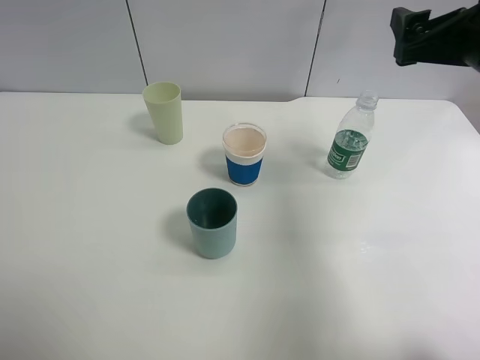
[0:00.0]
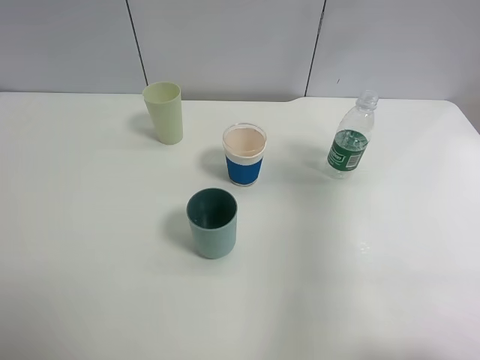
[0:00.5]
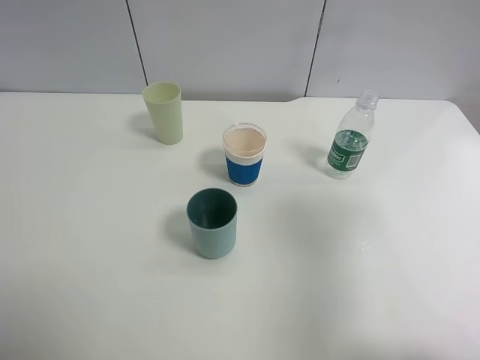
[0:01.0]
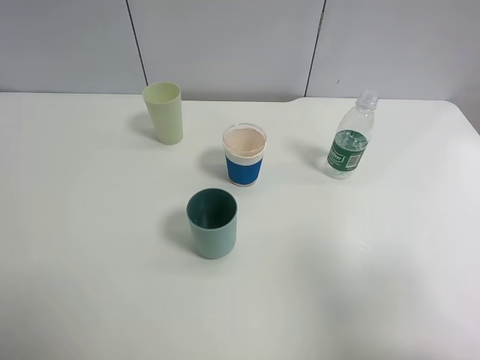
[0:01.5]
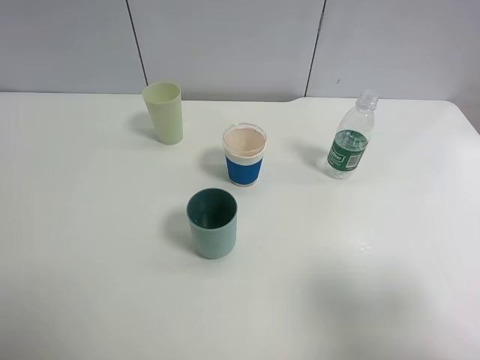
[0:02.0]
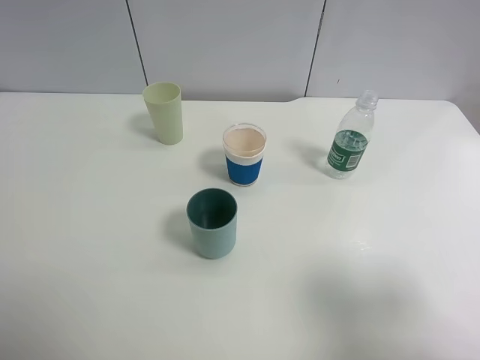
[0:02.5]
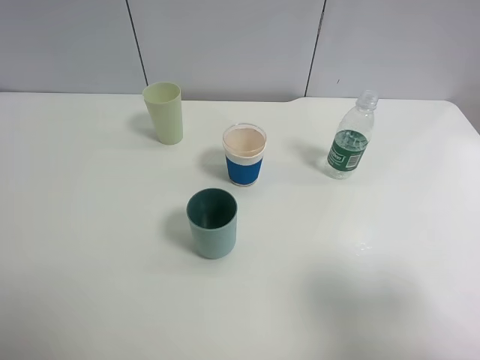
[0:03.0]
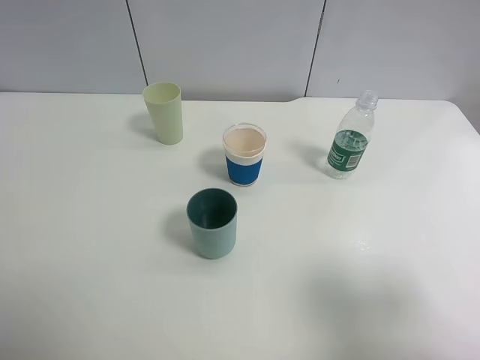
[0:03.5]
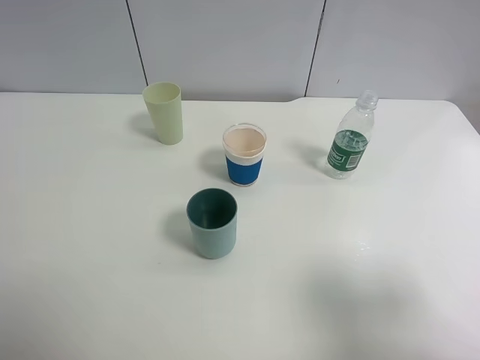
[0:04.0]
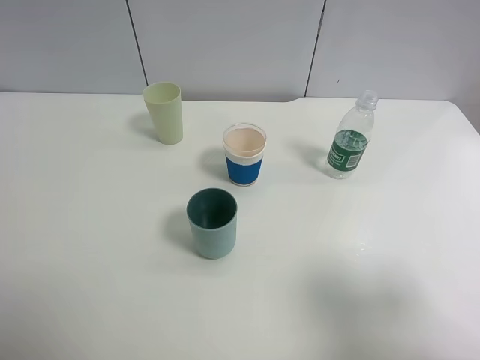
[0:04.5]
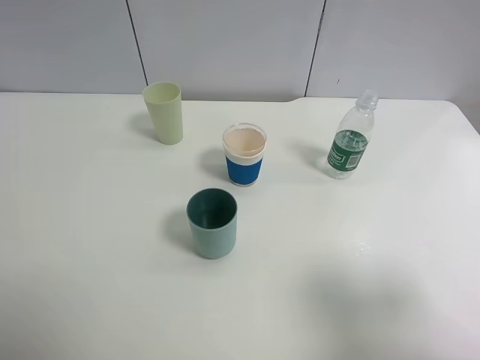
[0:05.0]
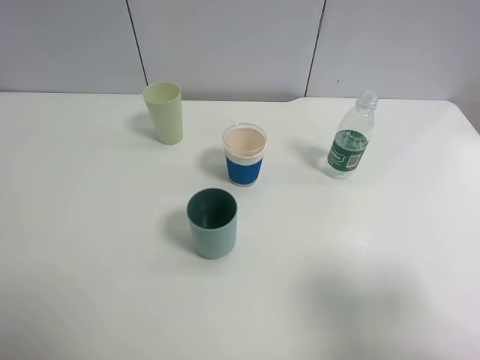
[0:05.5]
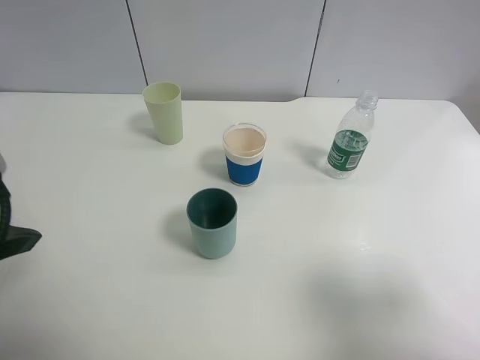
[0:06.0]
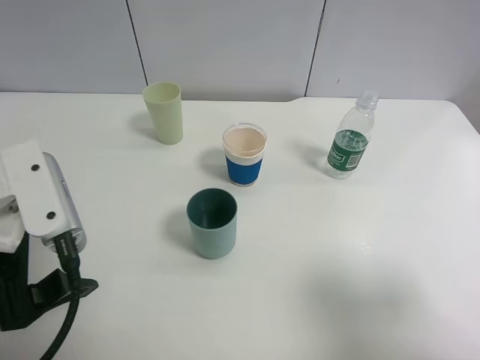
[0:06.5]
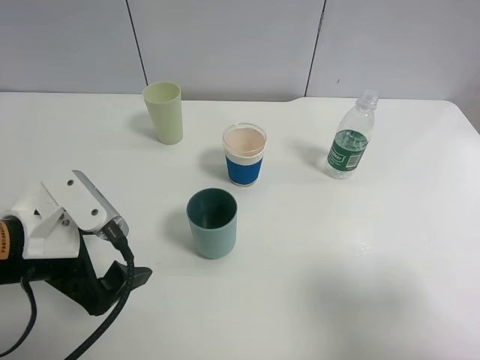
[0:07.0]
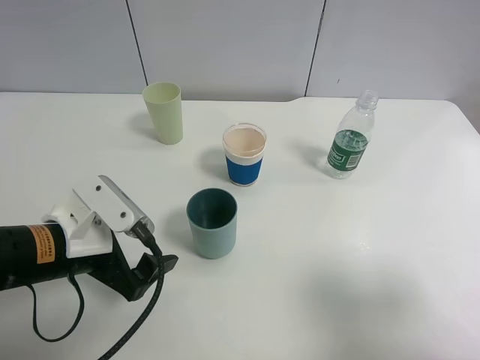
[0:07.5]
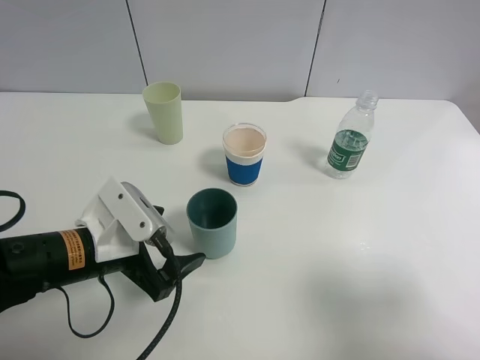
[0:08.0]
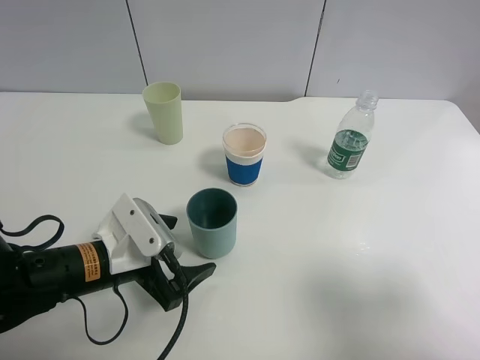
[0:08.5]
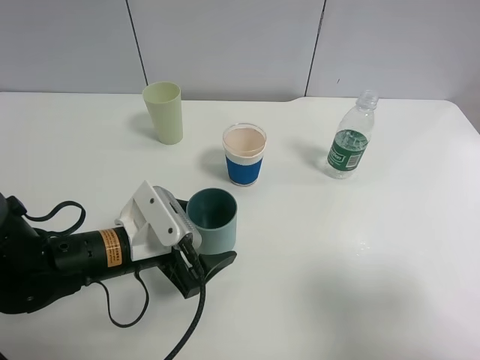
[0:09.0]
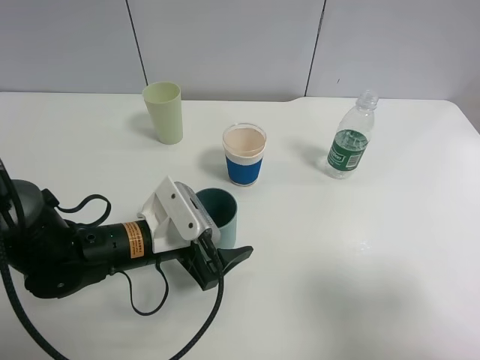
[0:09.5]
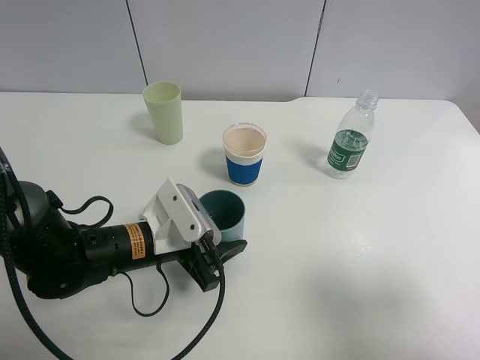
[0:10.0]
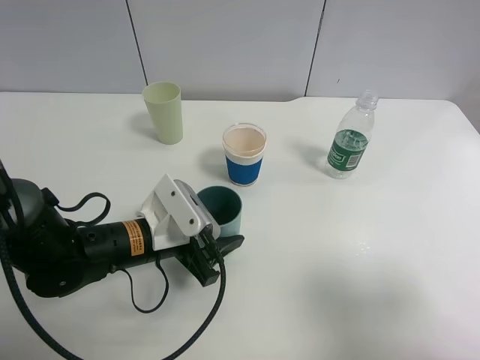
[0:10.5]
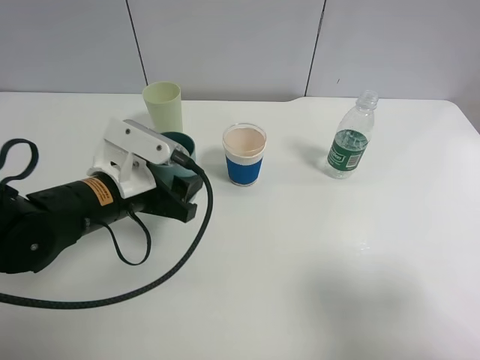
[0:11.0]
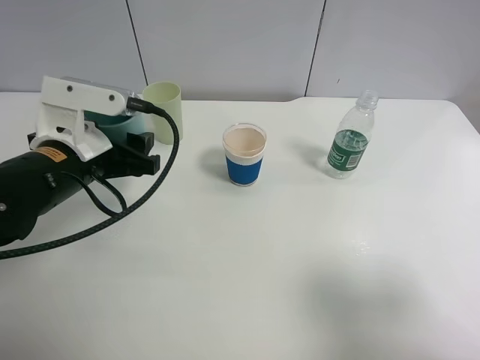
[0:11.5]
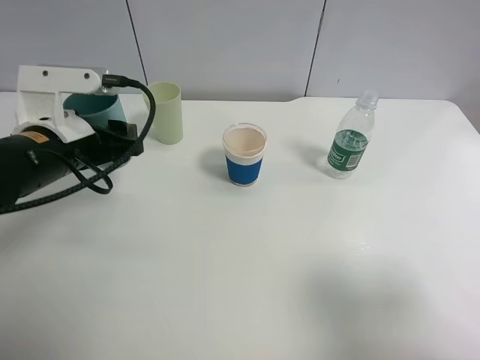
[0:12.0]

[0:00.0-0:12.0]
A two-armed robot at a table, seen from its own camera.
Task of the whole recording: use a clamp to hold the bottle of the drink, pour the beverage into a random cup, then clamp the cup containing the drink and pour the drink into another random cup.
Step, 0:00.0 to 0:10.5: Pick up the blue plastic cup bottle with left gripper.
0:00.0 to 0:02.0: The right gripper goes about 25 cm backward.
0:02.0 to 0:04.0: Neither gripper changes place.
0:04.0 to 0:06.0: The left gripper goes roughly 15 cm forward and to the right.
0:06.0 to 0:08.0: The left gripper travels downward and to the right by about 20 cm.
0:08.0 to 0:10.0: The left gripper ends up approximately 5 cm from where it was, and closes up.
0:10.0 to 0:12.0: The left gripper shifts some 15 cm upward and to the left.

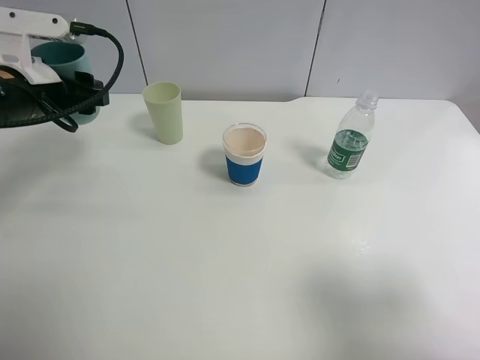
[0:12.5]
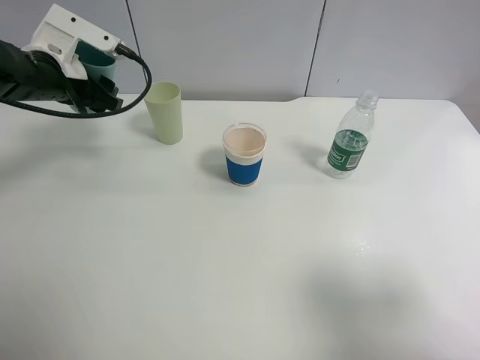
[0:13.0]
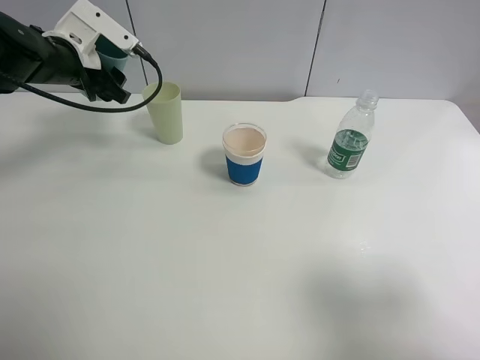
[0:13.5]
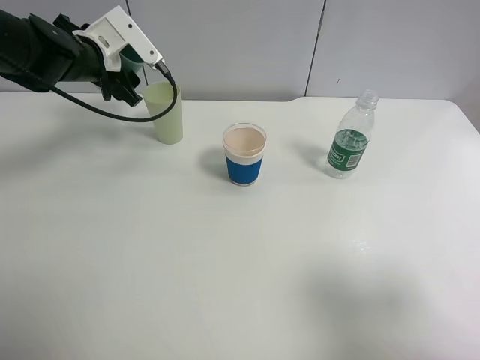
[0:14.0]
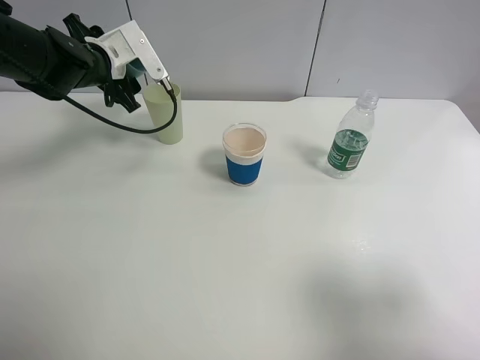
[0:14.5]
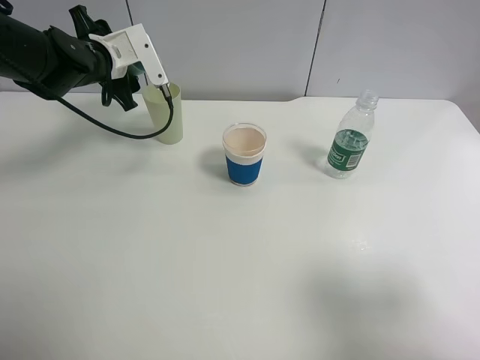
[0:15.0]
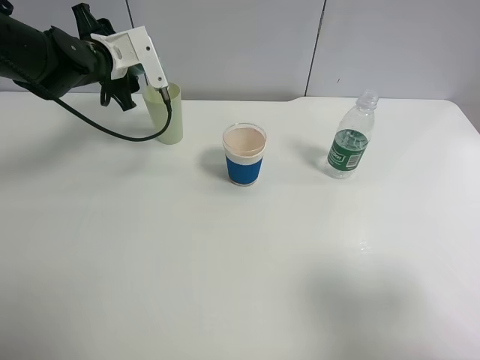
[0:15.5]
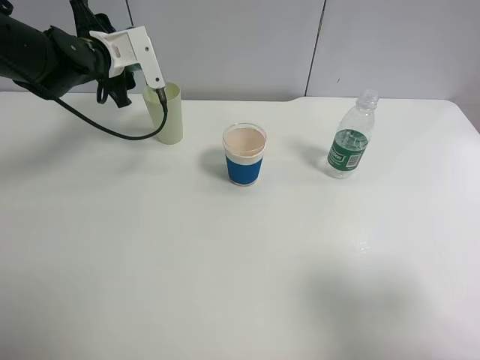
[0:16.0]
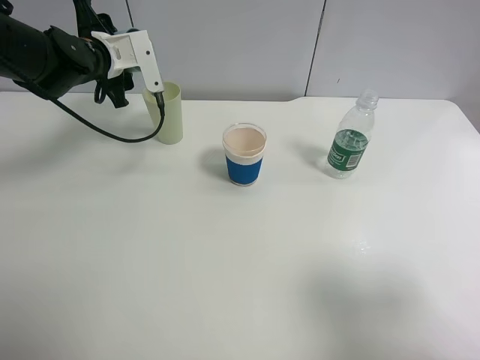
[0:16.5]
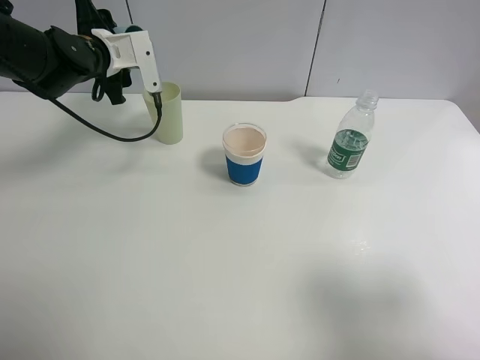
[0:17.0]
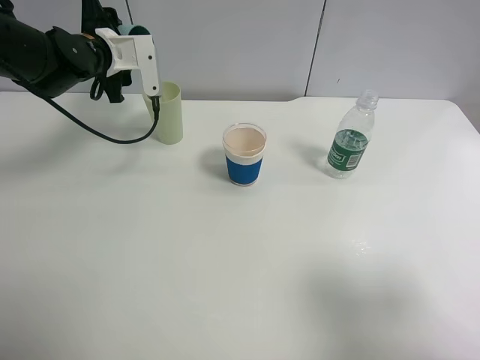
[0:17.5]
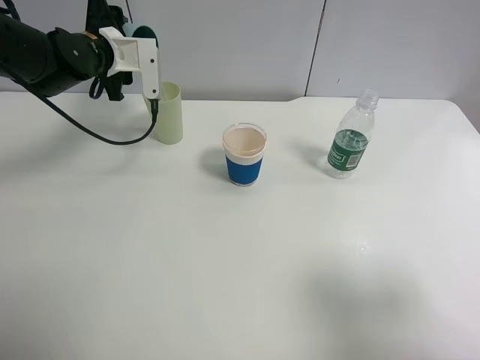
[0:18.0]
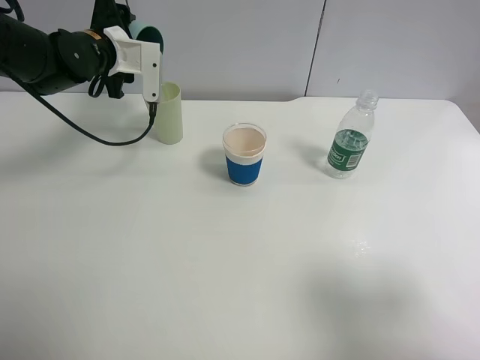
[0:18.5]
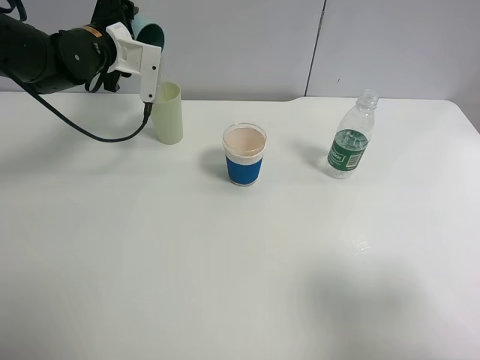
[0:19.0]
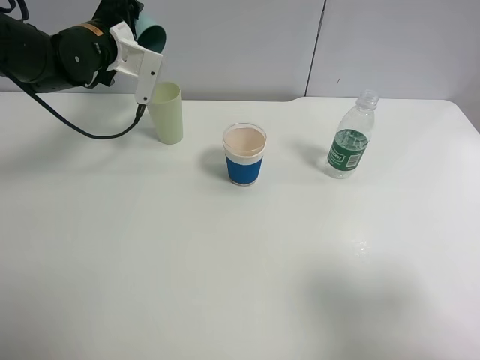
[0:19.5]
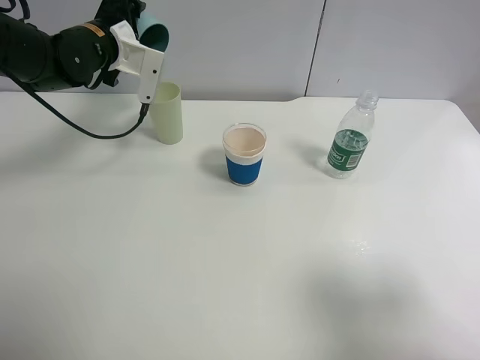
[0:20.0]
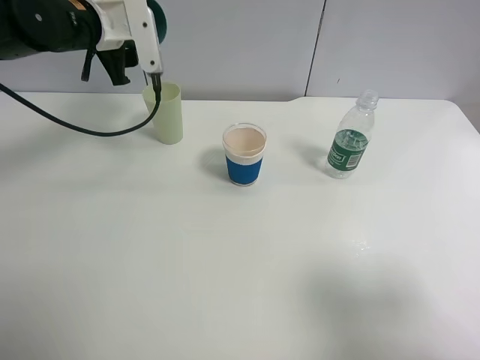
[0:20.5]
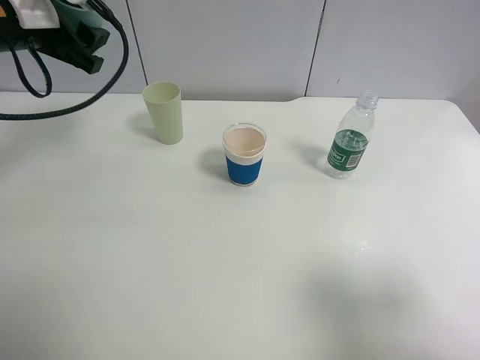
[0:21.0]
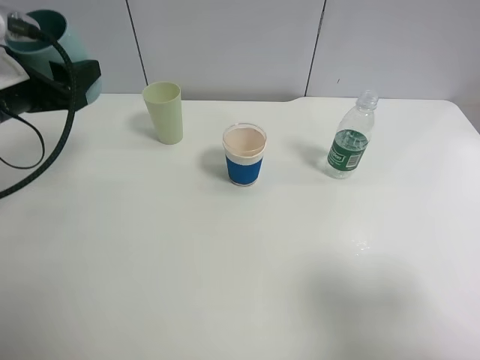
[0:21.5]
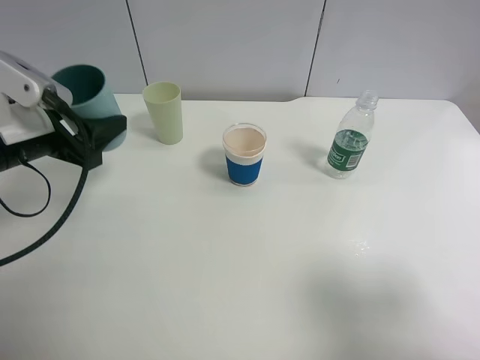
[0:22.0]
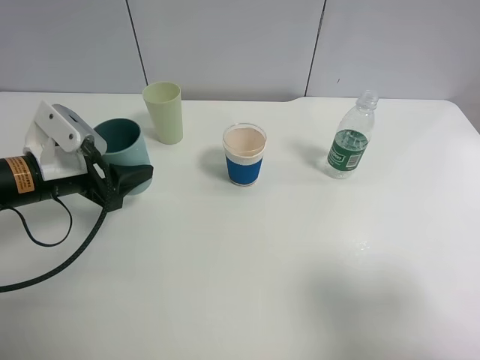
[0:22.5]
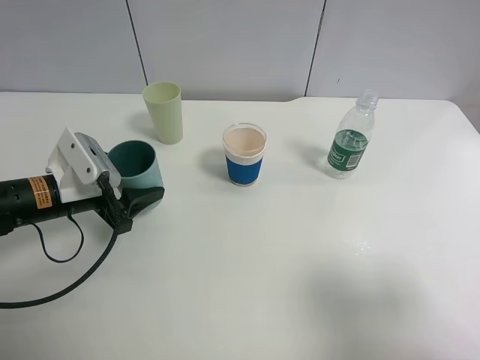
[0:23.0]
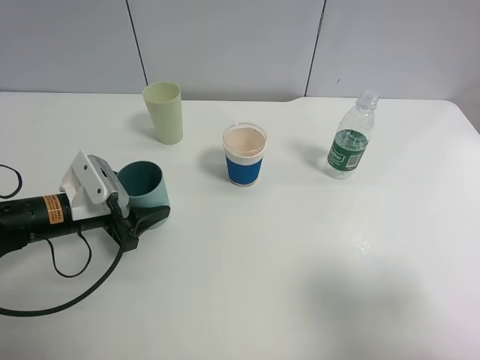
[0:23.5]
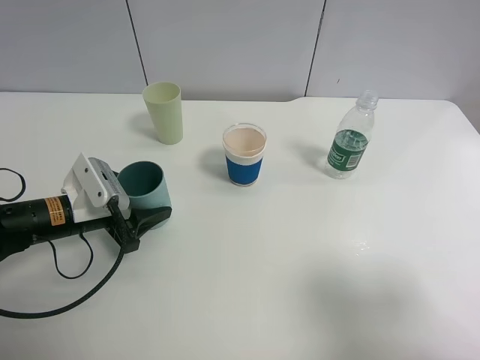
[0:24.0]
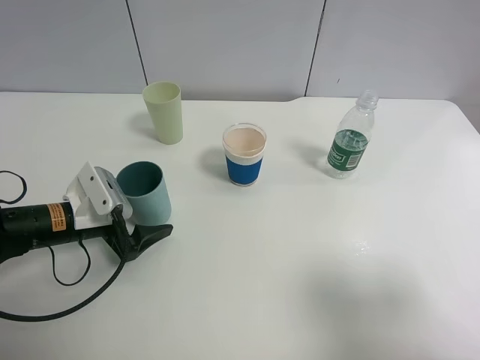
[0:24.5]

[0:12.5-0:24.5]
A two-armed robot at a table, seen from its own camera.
Task of the whole recording: use a clamp to hold the bottle of the drink, pour the beverage into a random cup, then clamp the cup containing the drink and pour the drink into another random cup.
Step, 0:12.5 to 0:20.5: Pour the water into the green plastic cup with left gripper.
0:12.5 to 0:14.5: The left gripper travels forward by approximately 10 cm.
0:14.5 to 0:16.5: The grippers make only small movements.
0:18.5 to 0:20.5: The left gripper moves upward, about 5 cm.
0:20.5 to 0:22.5: The left gripper travels backward and downward by some 20 cm.
0:22.5 to 0:24.5: The left gripper is displaced downward by some 10 cm, and opens its fingers.

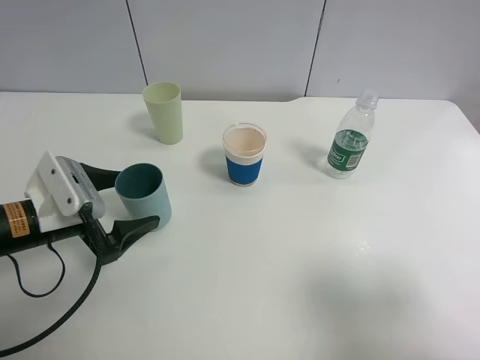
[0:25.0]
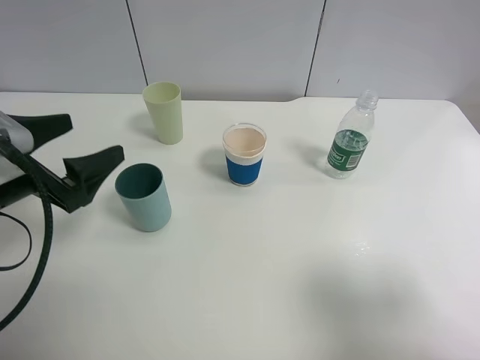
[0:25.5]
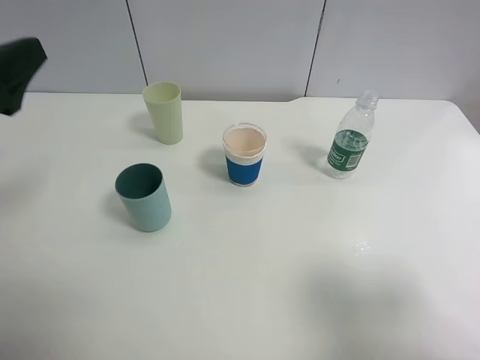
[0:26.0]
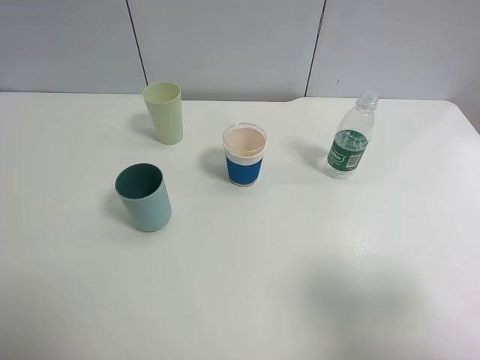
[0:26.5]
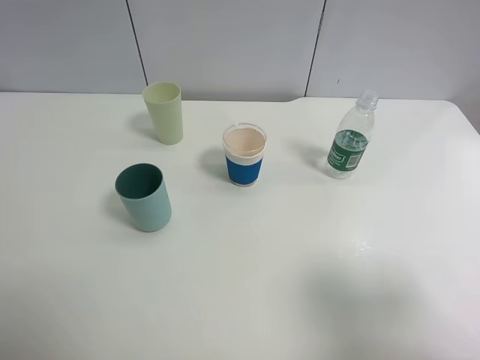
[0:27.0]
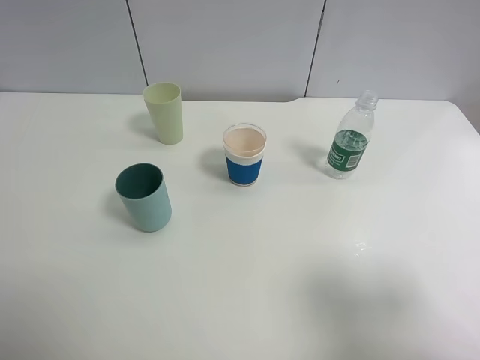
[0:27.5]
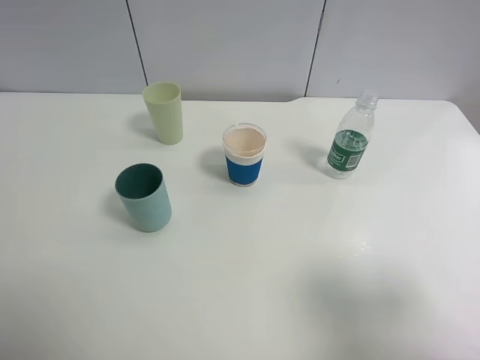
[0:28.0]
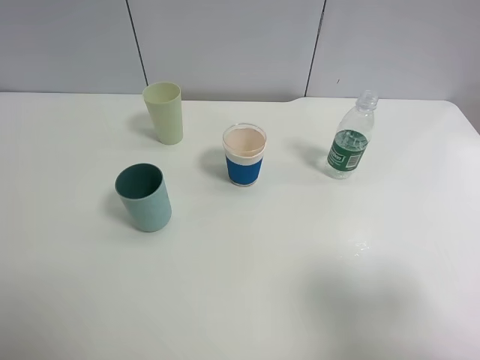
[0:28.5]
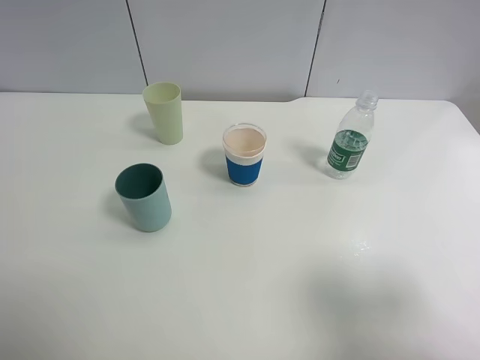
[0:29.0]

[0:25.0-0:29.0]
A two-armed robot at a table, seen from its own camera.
Task of the whole recording: use a clamp to hold the bottle of the drink, pour the beverage into a random cup, then clamp the cup containing the drink and pour the drink into another random cup.
0:25.0 to 0:27.0: The left gripper moves upward and backward, about 30 cm.
